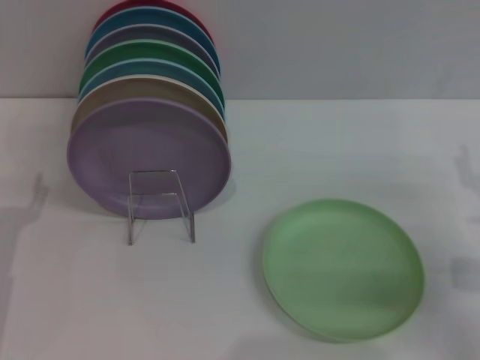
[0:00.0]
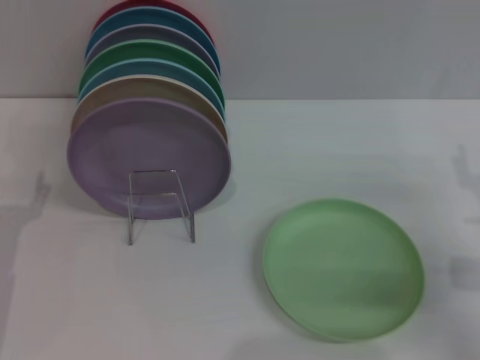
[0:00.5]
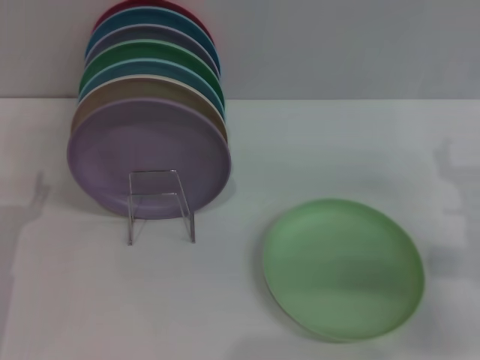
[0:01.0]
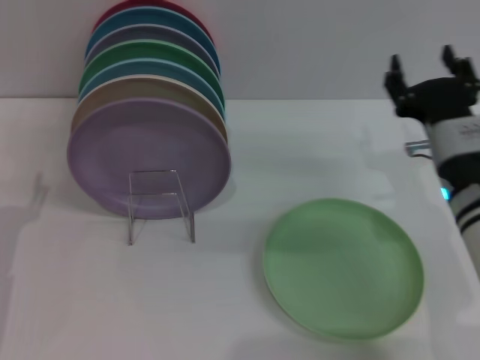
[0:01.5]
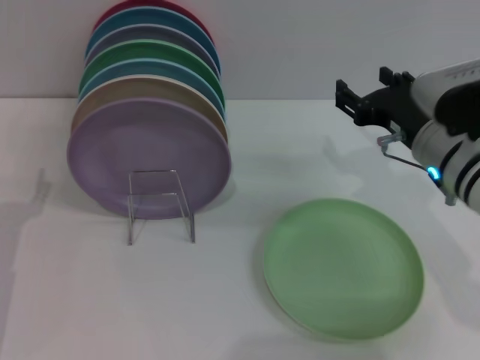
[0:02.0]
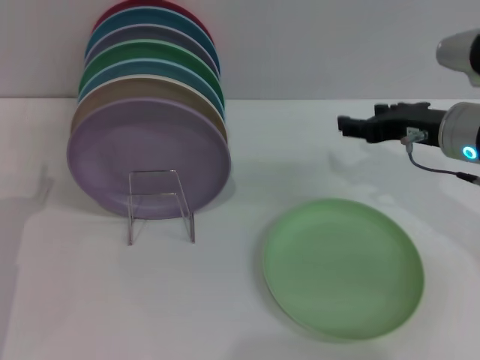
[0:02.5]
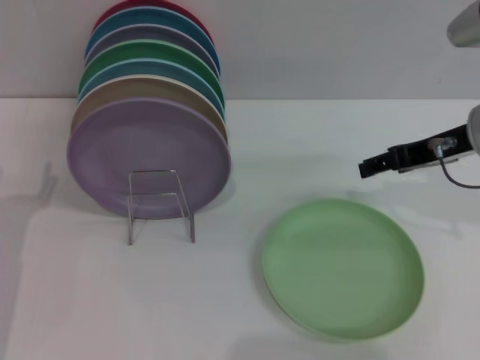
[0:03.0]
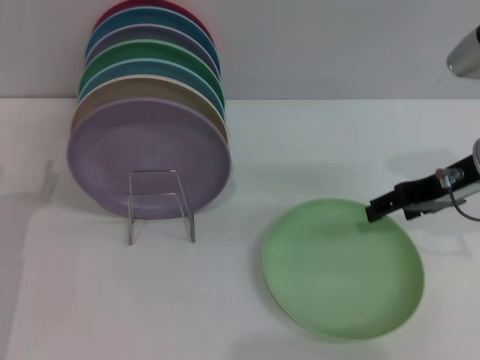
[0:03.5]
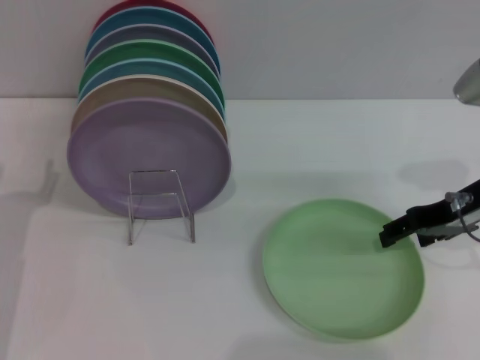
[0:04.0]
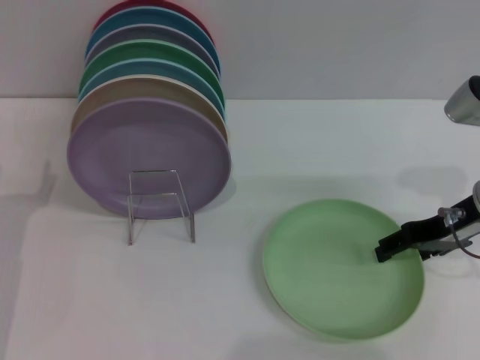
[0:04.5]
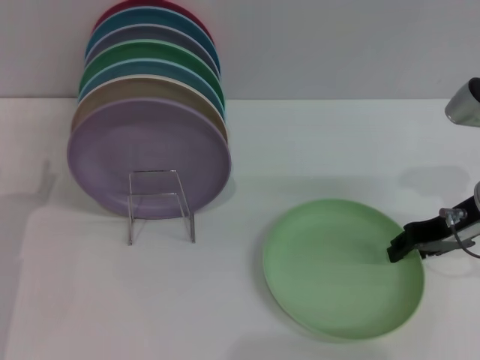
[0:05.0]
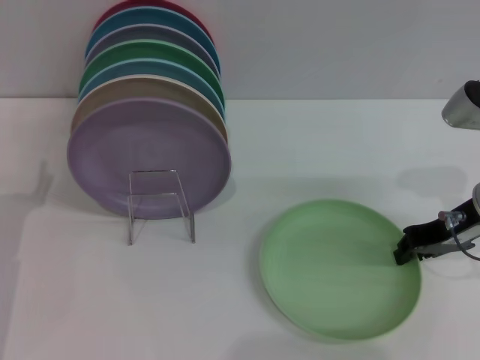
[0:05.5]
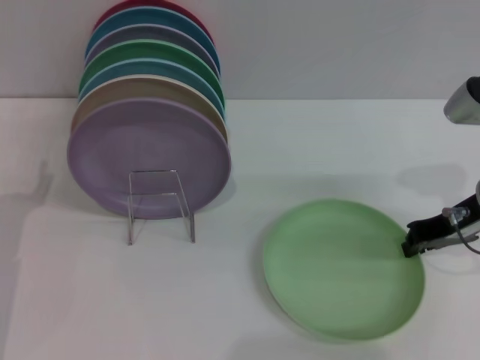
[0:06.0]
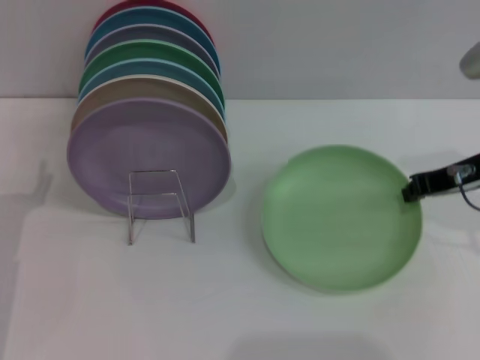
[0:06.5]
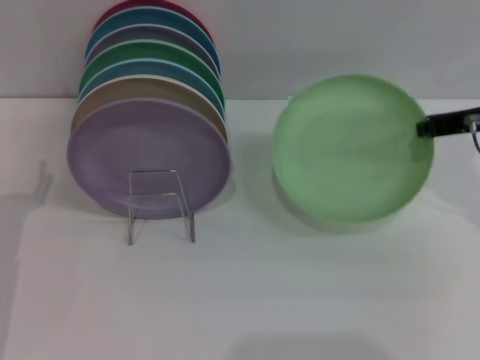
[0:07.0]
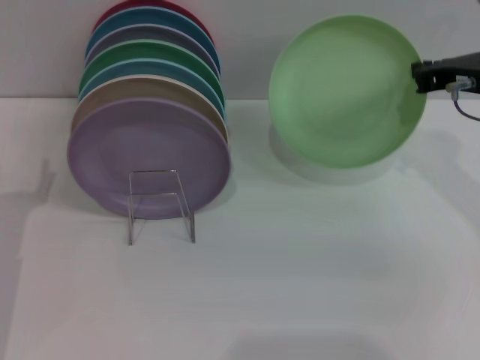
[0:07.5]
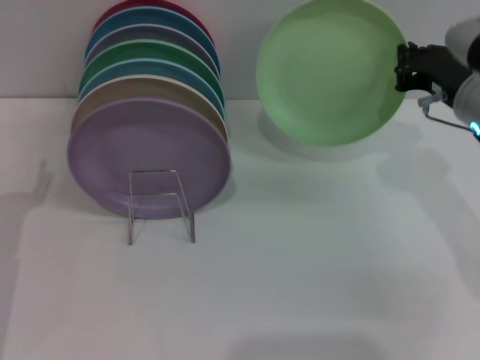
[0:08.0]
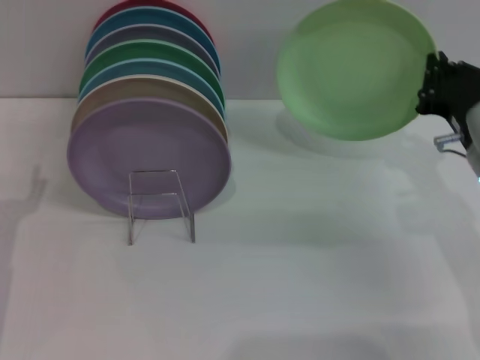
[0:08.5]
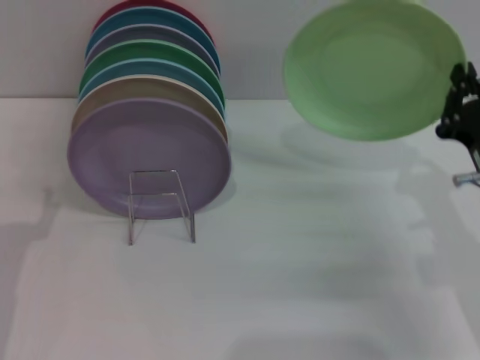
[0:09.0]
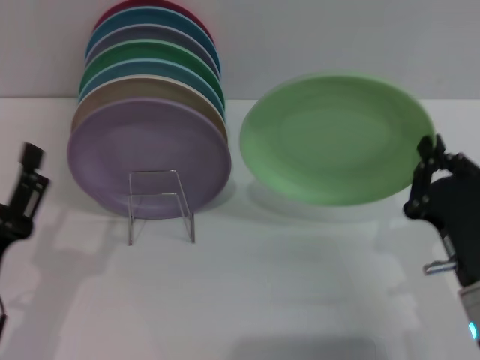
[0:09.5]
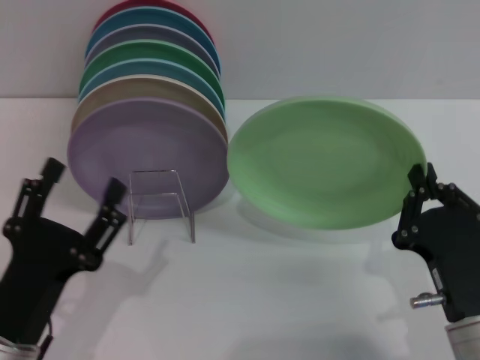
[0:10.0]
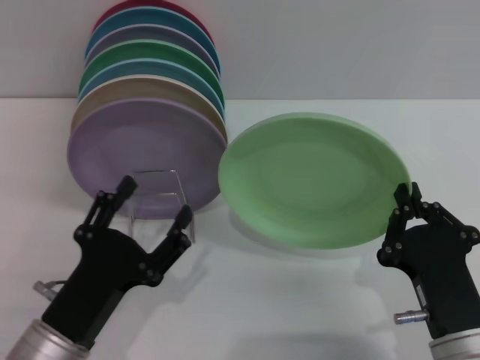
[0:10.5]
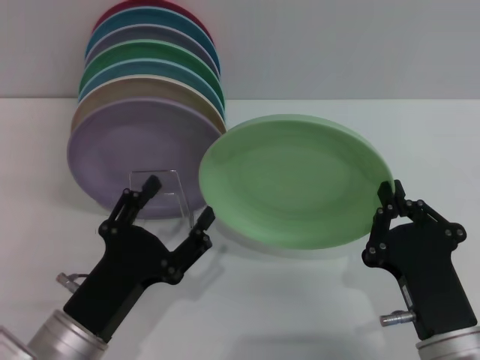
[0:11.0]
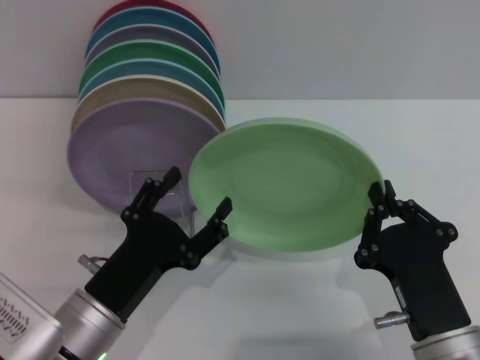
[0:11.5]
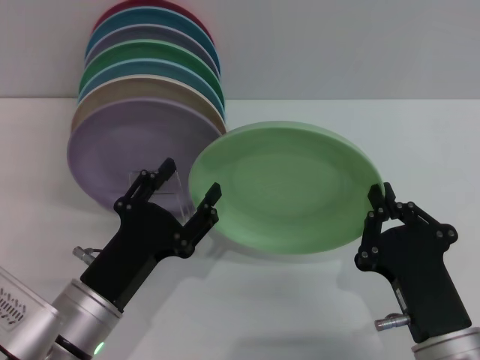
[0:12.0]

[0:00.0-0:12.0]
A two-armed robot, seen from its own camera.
Task of the whole recording: Grip the plate with one hand, pass it to the other, then set it on the shelf.
Step, 0:00.0 to 0:06.5: Pick up the plate with the right gripper.
0:00.0 to 0:02.0: The right gripper is displaced to the left and forward by roughly 10 cm.
0:02.0 to 0:04.0: The right gripper shifts about 5 cm to the right.
0:04.0 to 0:06.0: The right gripper closes up.
0:08.0 to 0:10.0: The left gripper moves backward and to the right, roughly 10 cm, while the right gripper travels backward and downward by about 25 cm.
0:10.0 to 0:12.0: The left gripper changes place by some 5 cm.

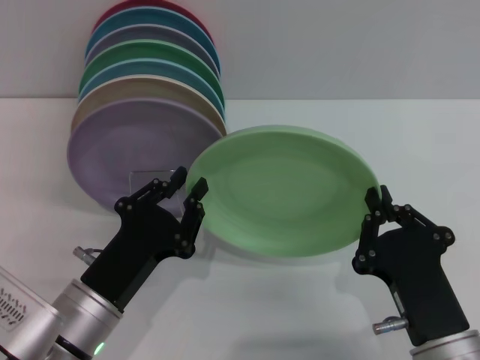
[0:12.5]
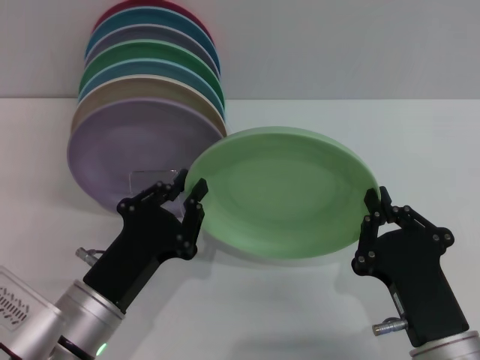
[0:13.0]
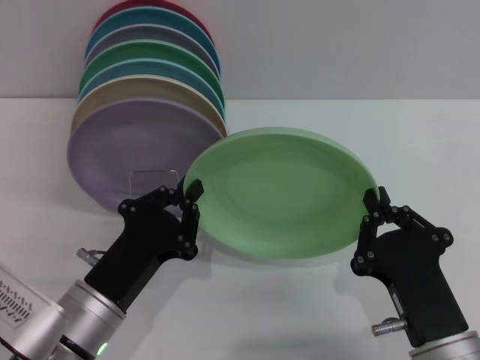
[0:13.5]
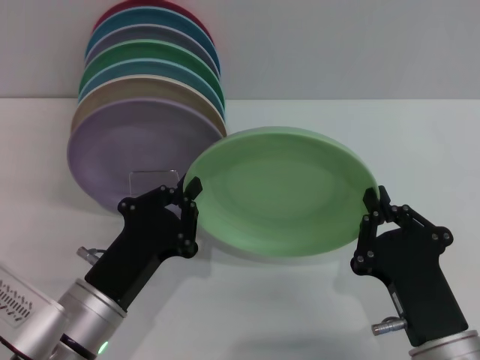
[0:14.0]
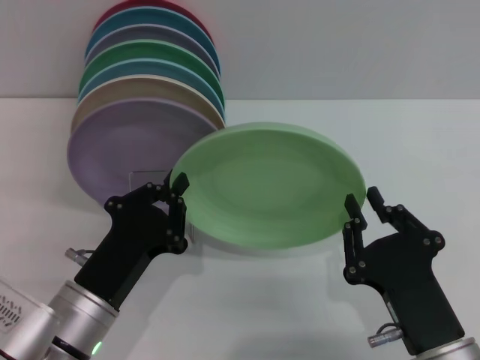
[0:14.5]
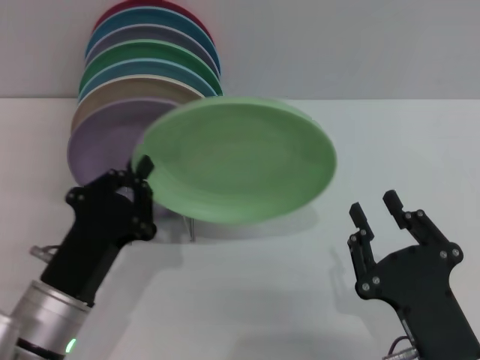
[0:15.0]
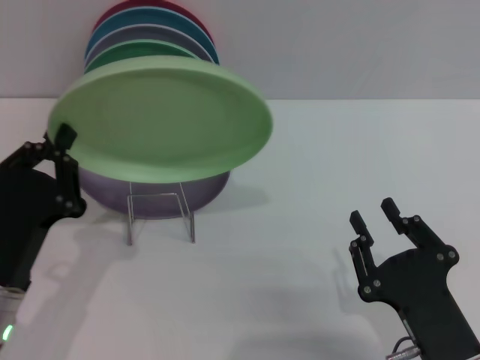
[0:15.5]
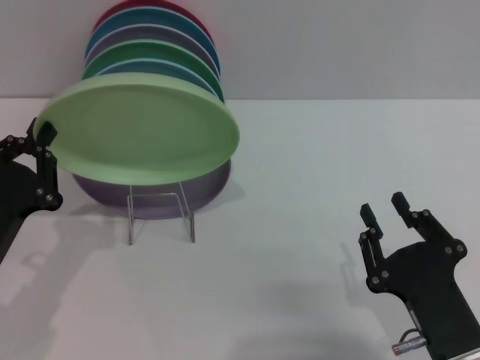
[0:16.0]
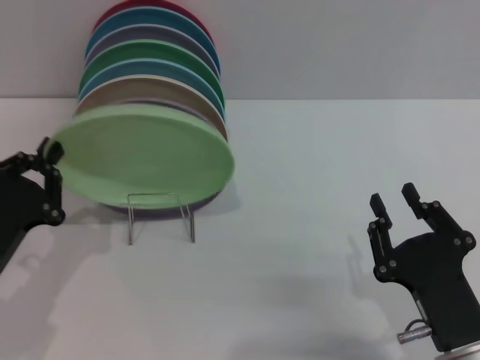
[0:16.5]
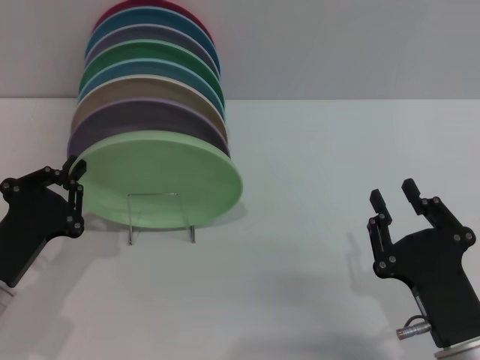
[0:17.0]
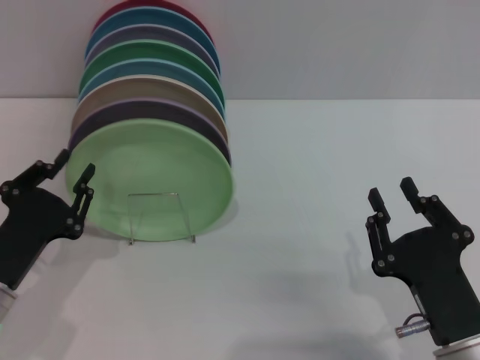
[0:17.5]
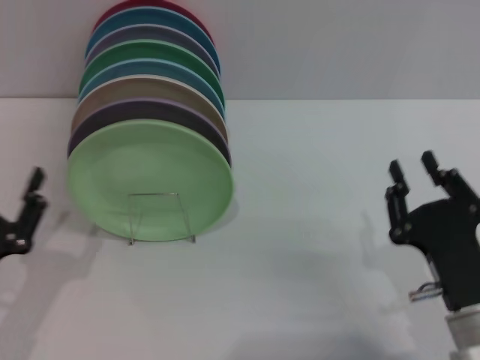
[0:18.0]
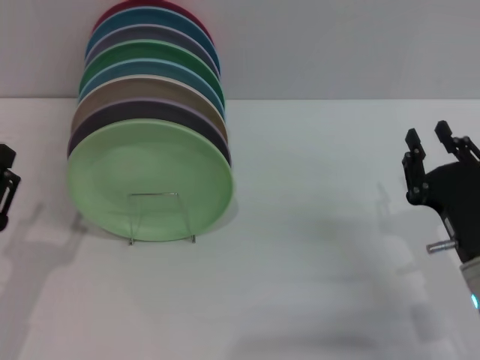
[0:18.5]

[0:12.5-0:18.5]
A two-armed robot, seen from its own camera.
Task of the whole recording: Grip the plate with one hand, pass it to the other, then set it on the shelf.
Step, 0:12.5 to 0:15.0: Pass the plate from the right gripper to the left gripper.
Step, 0:15.5 to 0:17.0: Place the plate on the shelf with the left gripper.
0:12.5 to 0:14.5: The left gripper closes.
0:14.5 to 0:16.5: The left gripper shifts roughly 10 cm to the left; the right gripper opens its fingers.
0:16.5 to 0:18.5: The right gripper moves forward, roughly 10 cm. Meanwhile the left gripper opens.

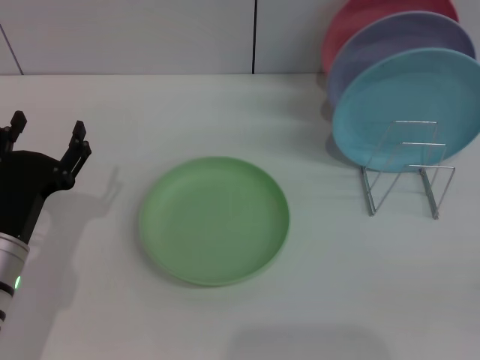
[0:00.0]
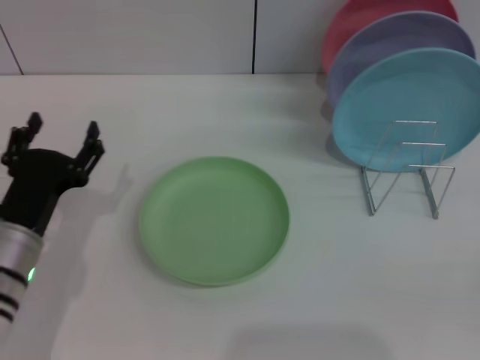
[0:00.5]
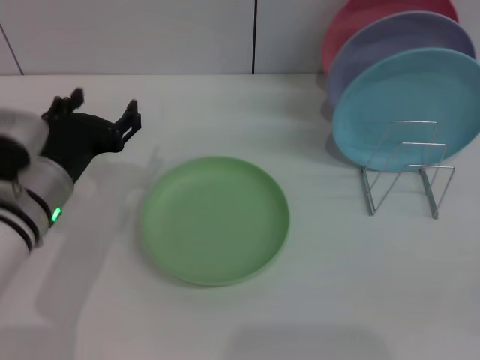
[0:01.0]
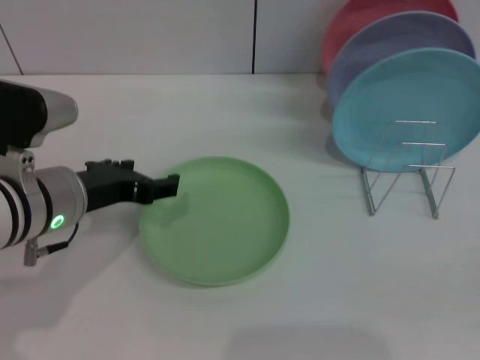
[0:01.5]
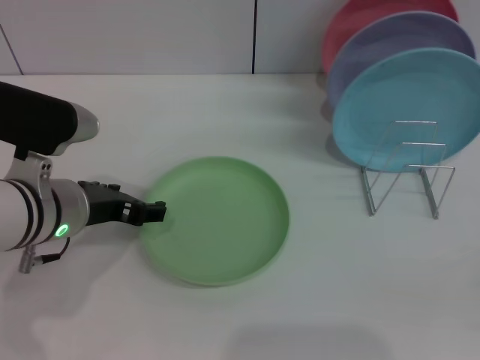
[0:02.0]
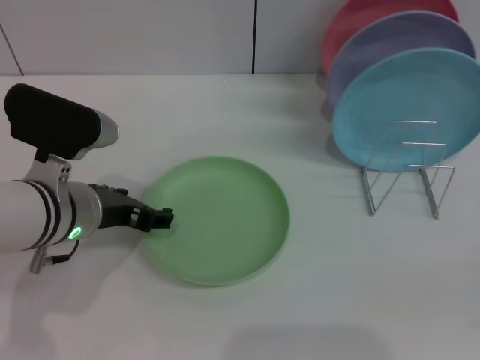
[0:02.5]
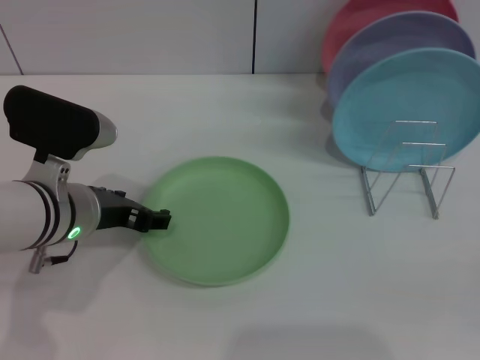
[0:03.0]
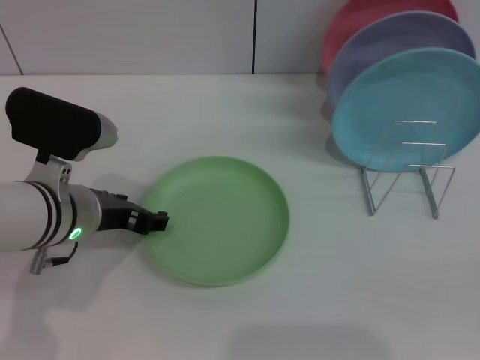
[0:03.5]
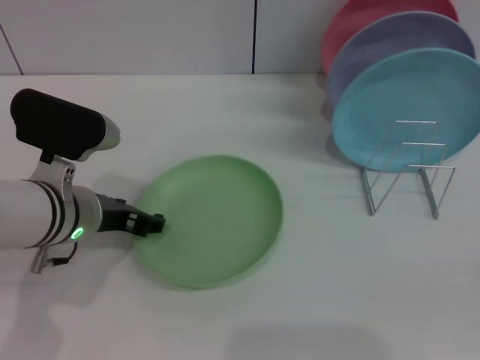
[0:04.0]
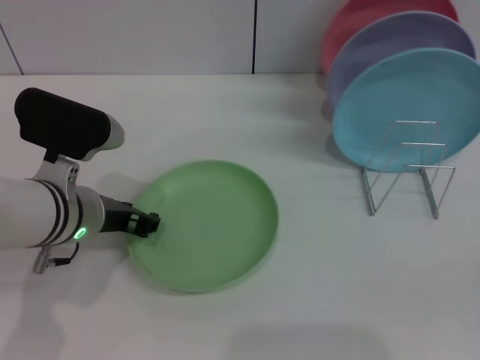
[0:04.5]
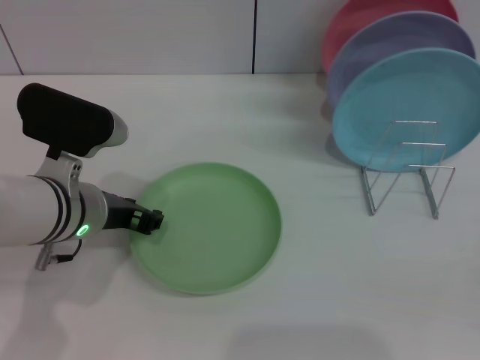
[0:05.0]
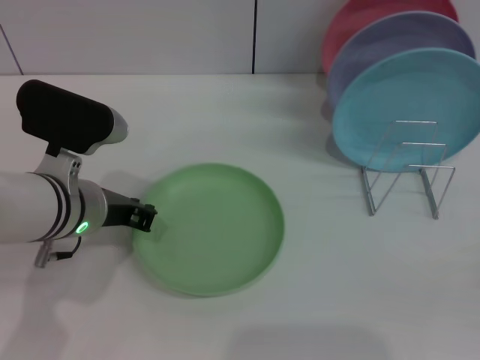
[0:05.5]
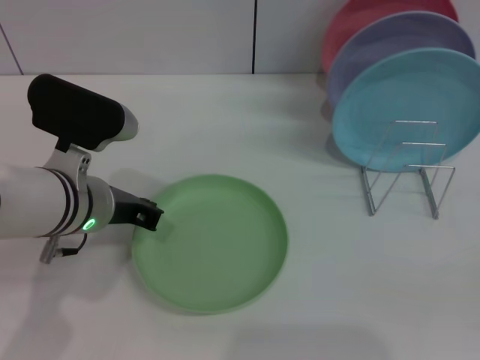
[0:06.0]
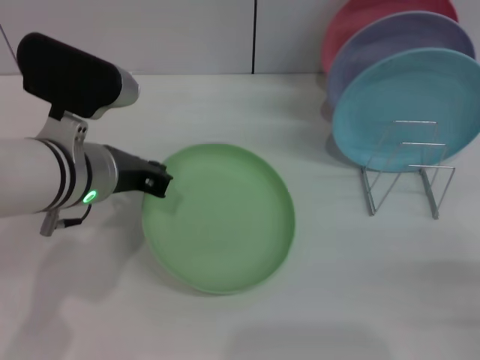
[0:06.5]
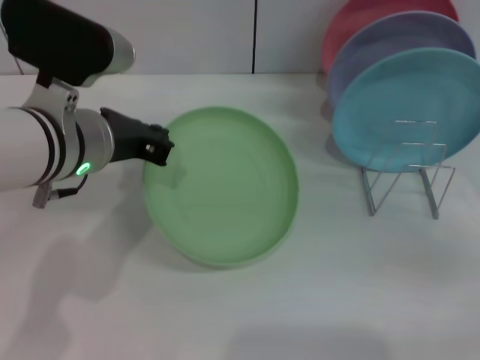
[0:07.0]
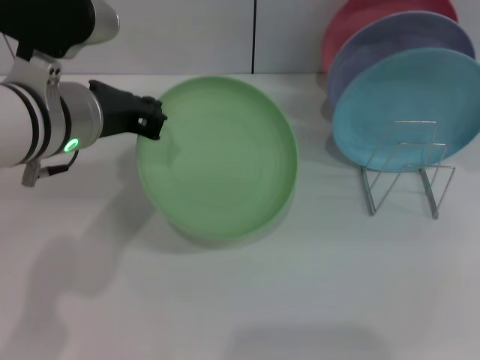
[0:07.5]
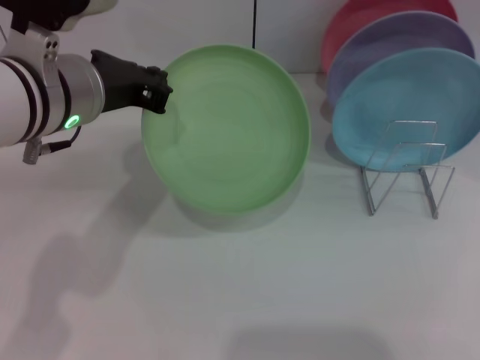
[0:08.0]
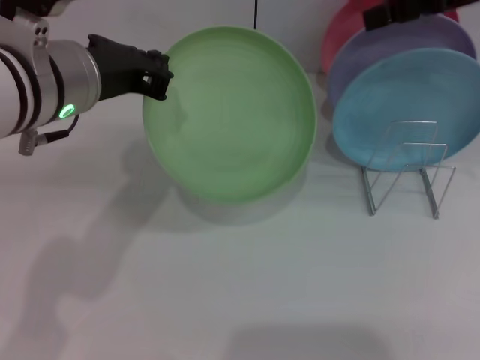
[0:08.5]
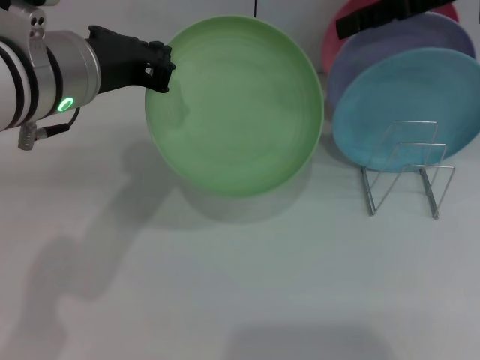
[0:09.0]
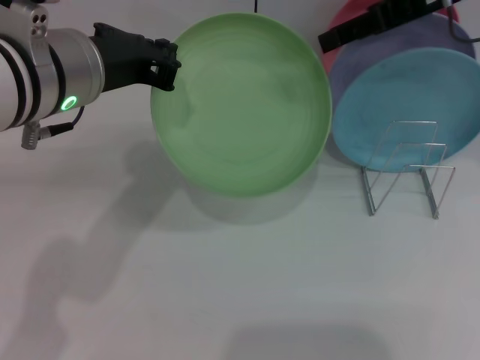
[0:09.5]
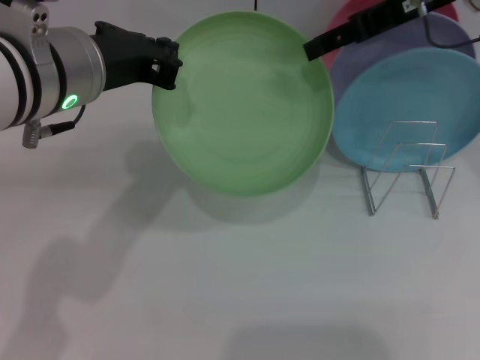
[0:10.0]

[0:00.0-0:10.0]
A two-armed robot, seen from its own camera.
Task of the whole recording: Grip the plate with one hand, pass it to the other, then set it on the shelf.
Step, 0:00.0 to 0:07.0: Pick up the plate with the left gripper.
0:00.0 to 0:02.0: The left gripper moves upward, to the right and forward, roughly 10 cm.
0:02.0 to 0:04.0: The grippers stay close to where they were, moving slightly.
0:04.0 to 0:06.0: The left gripper closes.
0:06.0 to 0:08.0: The left gripper shifts roughly 10 cm upward. Meanwhile the right gripper moves upward and forward, approximately 40 cm.
0:08.0 to 0:10.0: The right gripper shifts about 10 cm to the left, forward and downward.
